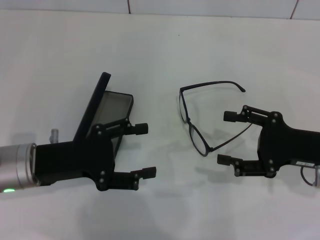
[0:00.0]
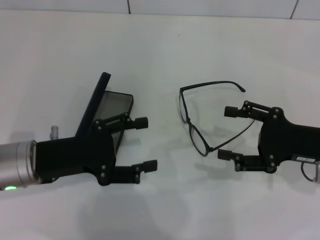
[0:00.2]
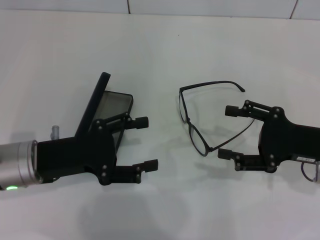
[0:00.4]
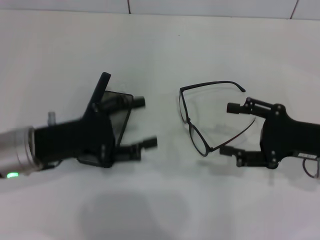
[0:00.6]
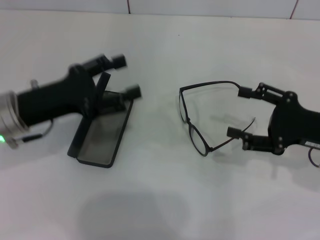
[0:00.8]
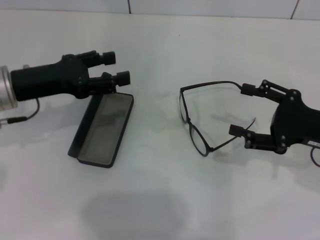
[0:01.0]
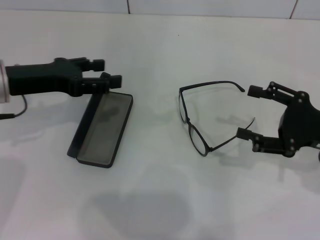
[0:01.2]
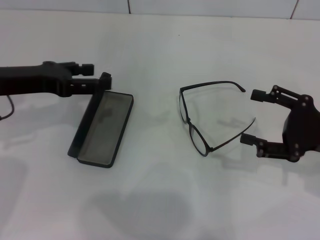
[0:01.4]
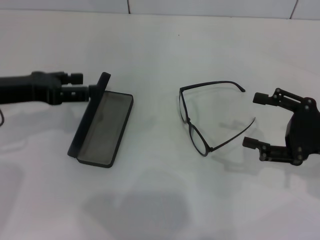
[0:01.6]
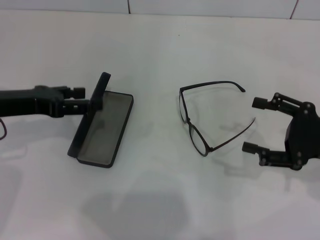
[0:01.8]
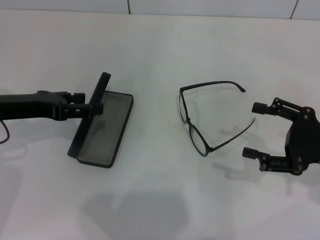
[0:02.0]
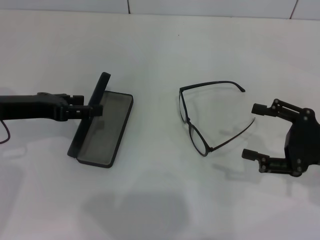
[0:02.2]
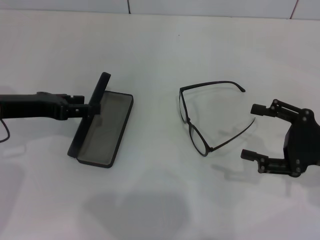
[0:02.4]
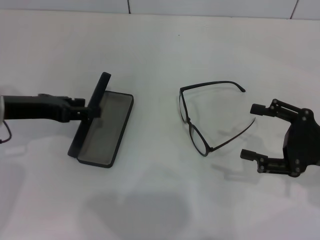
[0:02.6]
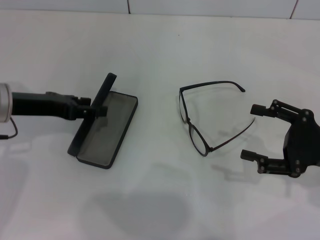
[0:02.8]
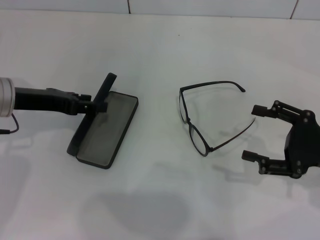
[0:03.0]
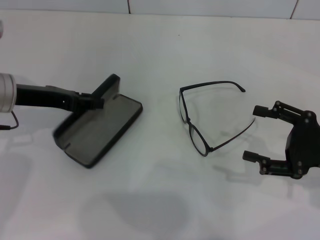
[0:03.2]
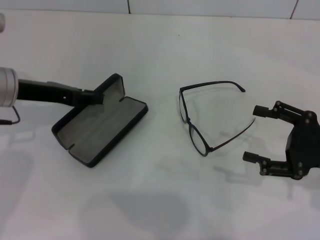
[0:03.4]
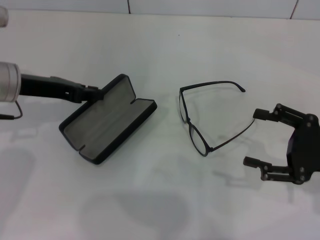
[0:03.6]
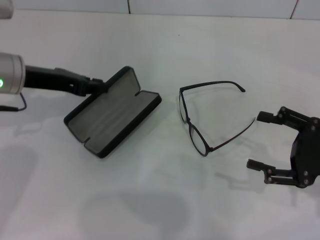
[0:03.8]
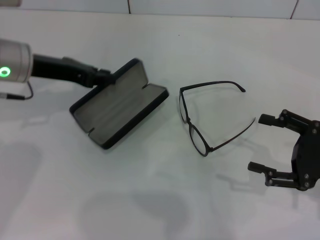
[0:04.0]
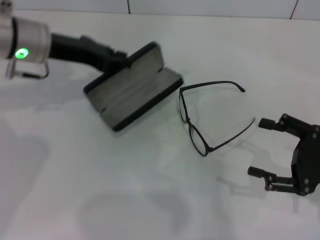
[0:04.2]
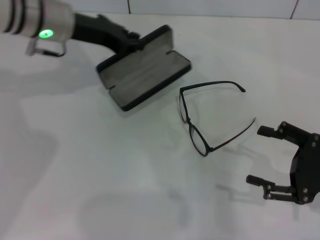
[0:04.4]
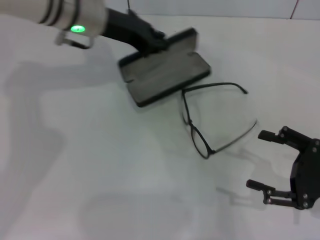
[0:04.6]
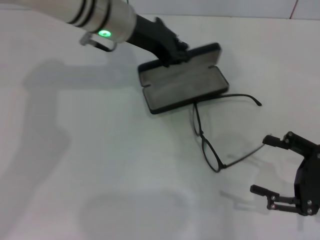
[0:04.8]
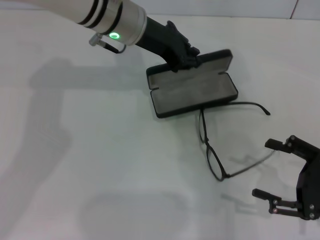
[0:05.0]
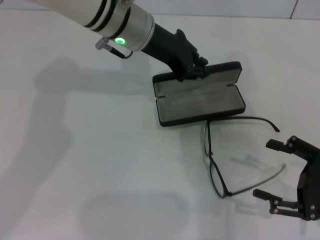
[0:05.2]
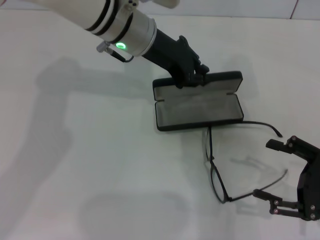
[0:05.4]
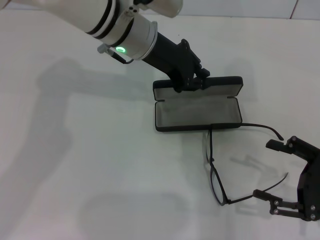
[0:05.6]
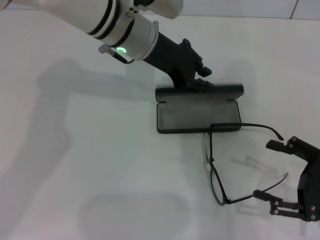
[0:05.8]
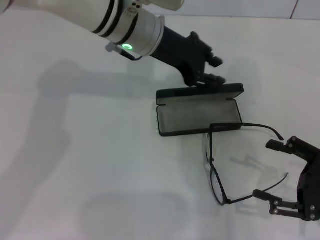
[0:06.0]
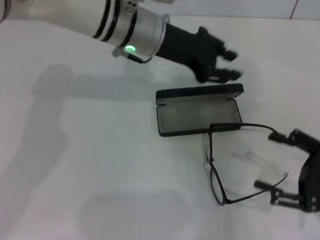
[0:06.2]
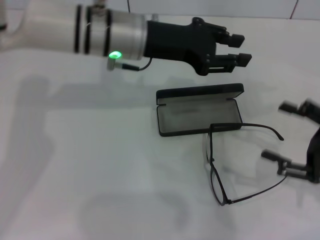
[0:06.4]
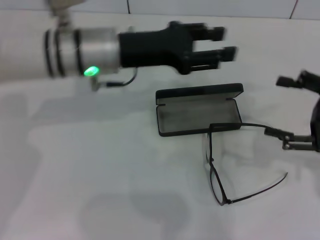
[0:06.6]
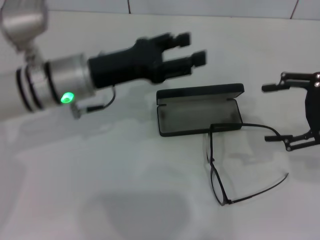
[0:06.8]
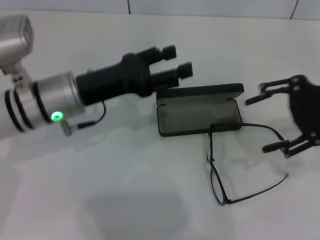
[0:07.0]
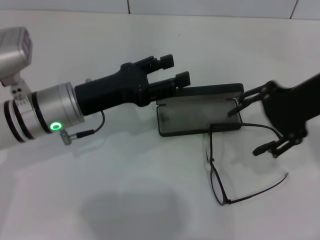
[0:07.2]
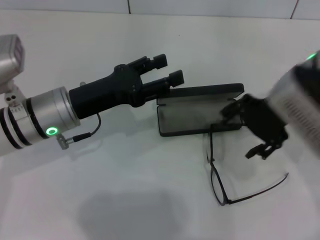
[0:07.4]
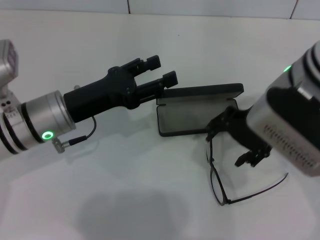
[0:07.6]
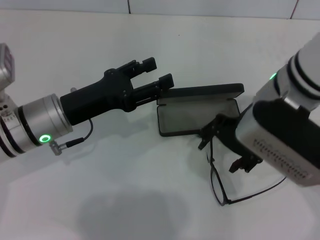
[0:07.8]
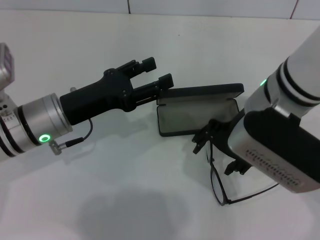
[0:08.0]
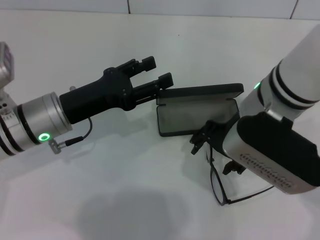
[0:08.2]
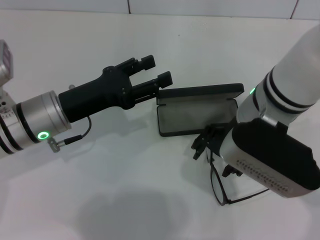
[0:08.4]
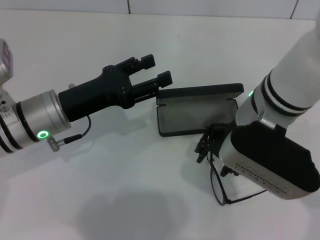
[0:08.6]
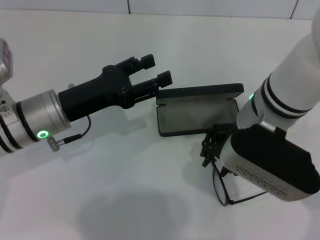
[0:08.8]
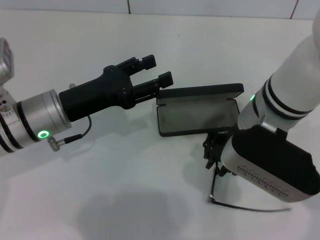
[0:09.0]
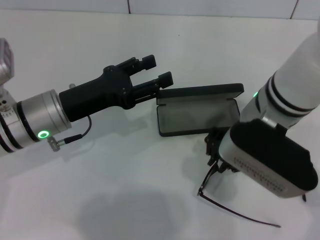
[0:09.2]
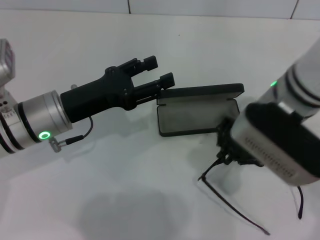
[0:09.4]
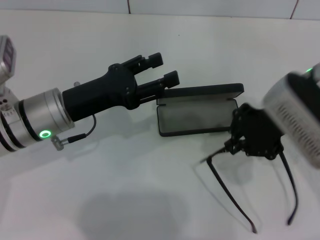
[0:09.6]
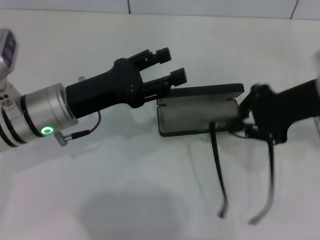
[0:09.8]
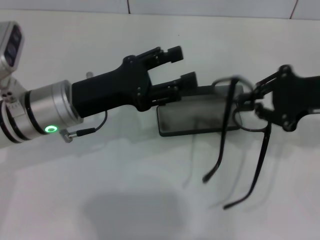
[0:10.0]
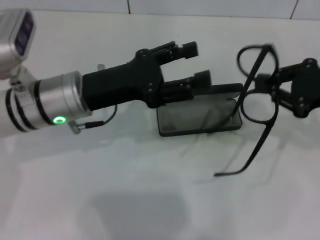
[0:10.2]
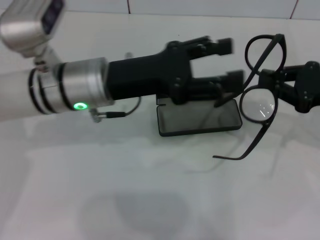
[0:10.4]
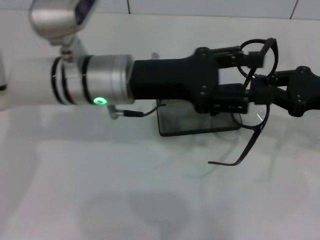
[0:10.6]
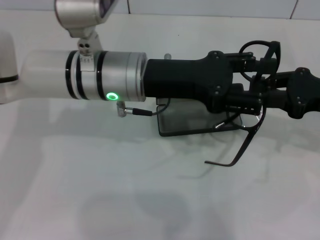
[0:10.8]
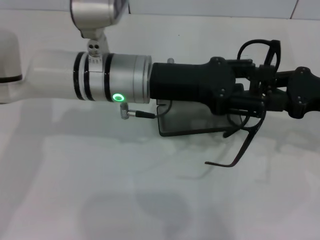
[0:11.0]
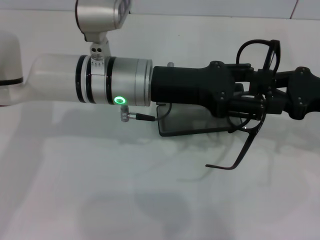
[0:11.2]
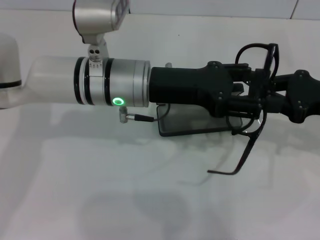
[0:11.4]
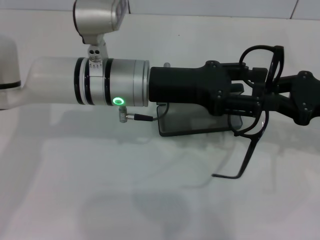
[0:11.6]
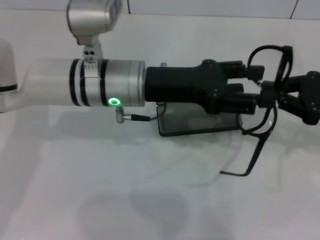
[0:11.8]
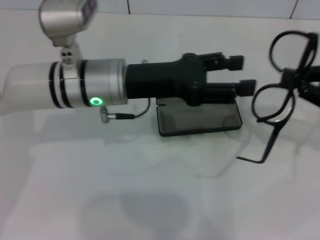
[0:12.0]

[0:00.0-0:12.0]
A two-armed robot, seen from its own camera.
Step, 0:00.0 to 0:03.6: Grab the glasses case with your left hand.
Step, 0:03.8 to 0:05.8: Place the glasses case in the center of the table with your left hand.
Step, 0:06.0 to 0:09.2: Grab the eyeglass frame with your right hand.
0:00.0 to 0:01.6: The left gripper goes about 10 cm upward, forward and to the left.
0:01.6 to 0:03.0: The grippers make only small movements.
0:03.0 to 0:04.4: The left gripper travels forward, to the right and upward by roughly 15 cm, and closes.
0:04.4 to 0:06.0: The left gripper goes roughly 10 cm to the right.
0:06.0 to 0:07.6: The left gripper shifts about 20 cm to the left, backward and downward, and opens. The right gripper travels to the left, upward and forward by some 25 cm.
0:07.6 to 0:09.0: The right gripper closes its fingers.
0:09.0 to 0:10.4: The right gripper moves to the right, roughly 20 cm, and closes up. The left gripper goes some 10 cm to the right and upward.

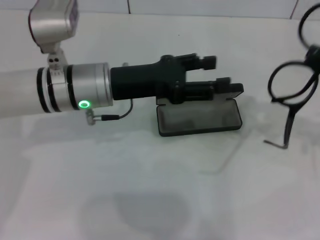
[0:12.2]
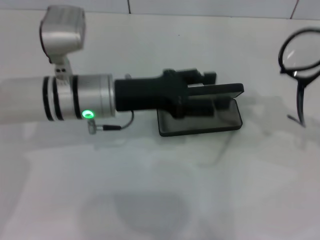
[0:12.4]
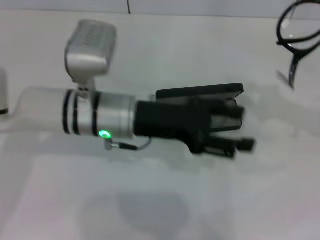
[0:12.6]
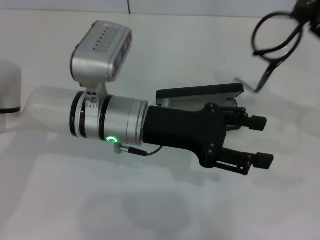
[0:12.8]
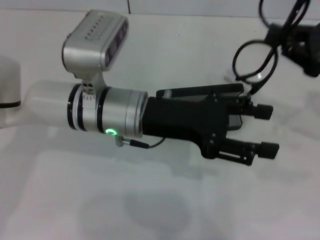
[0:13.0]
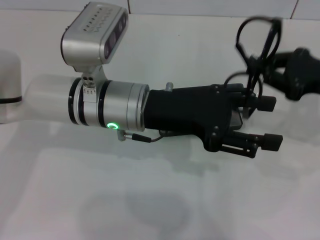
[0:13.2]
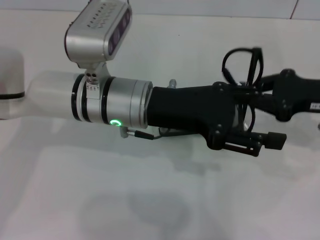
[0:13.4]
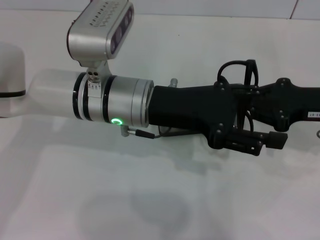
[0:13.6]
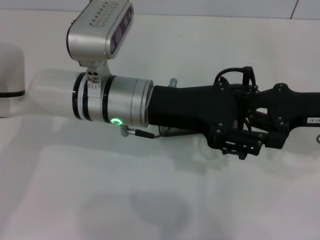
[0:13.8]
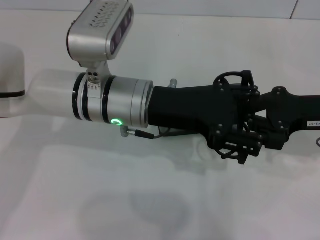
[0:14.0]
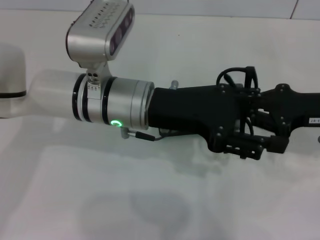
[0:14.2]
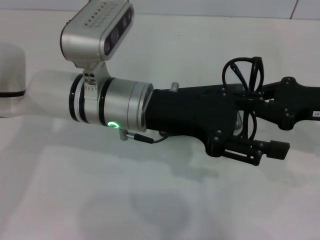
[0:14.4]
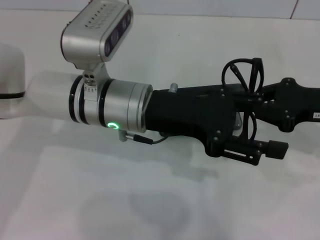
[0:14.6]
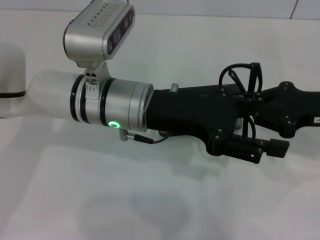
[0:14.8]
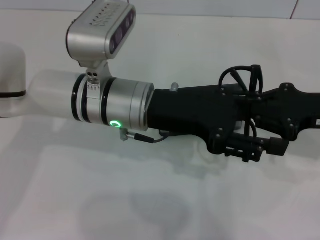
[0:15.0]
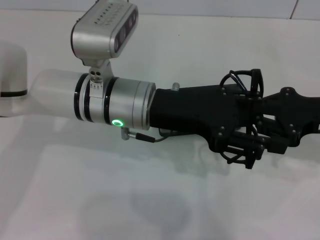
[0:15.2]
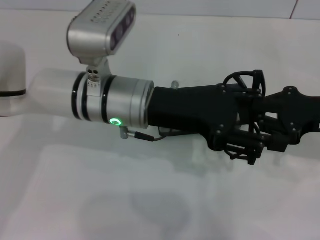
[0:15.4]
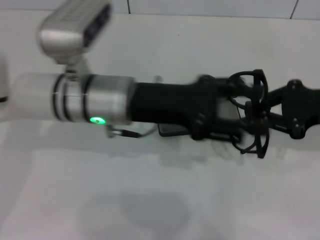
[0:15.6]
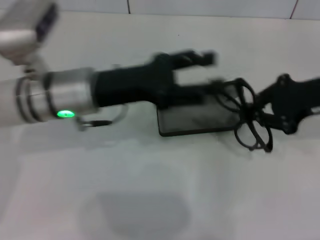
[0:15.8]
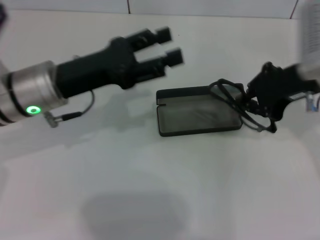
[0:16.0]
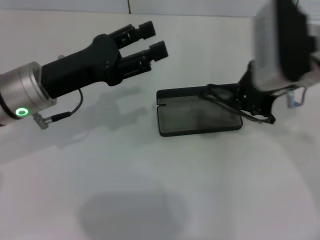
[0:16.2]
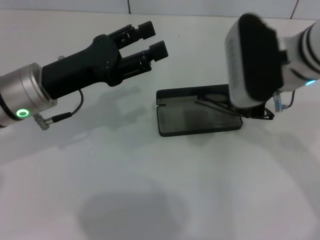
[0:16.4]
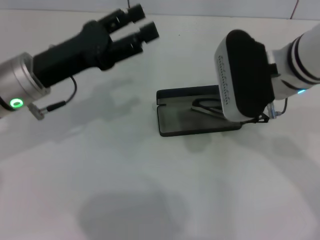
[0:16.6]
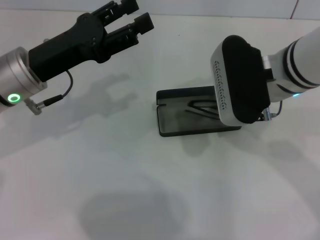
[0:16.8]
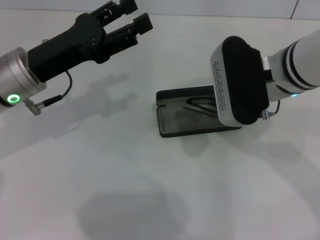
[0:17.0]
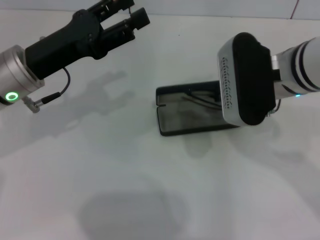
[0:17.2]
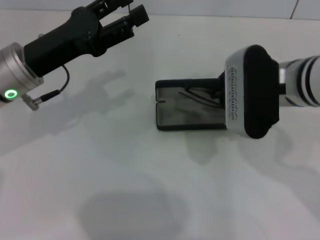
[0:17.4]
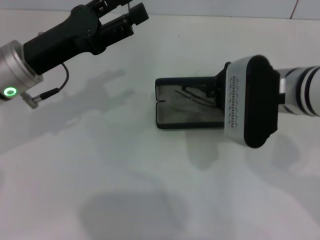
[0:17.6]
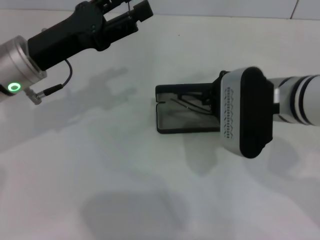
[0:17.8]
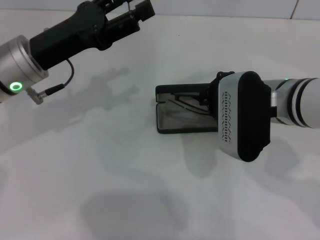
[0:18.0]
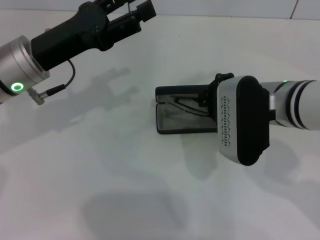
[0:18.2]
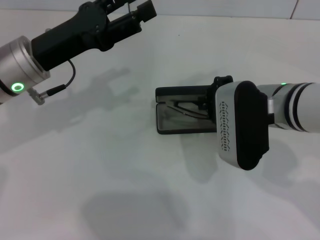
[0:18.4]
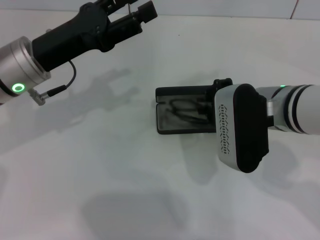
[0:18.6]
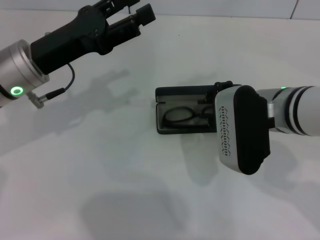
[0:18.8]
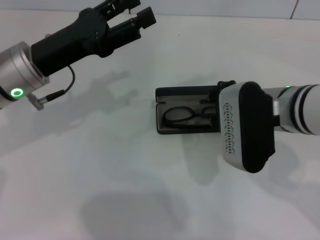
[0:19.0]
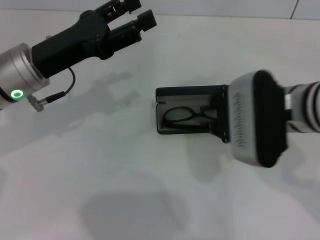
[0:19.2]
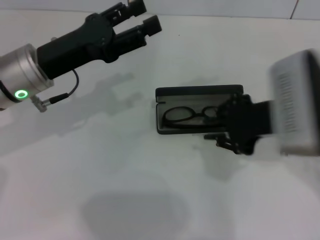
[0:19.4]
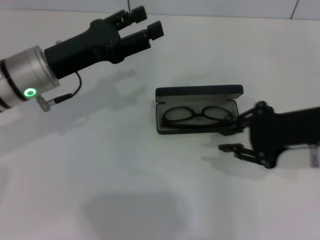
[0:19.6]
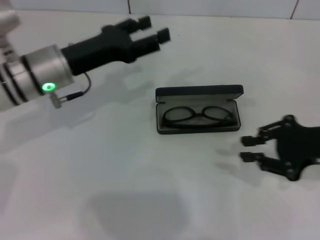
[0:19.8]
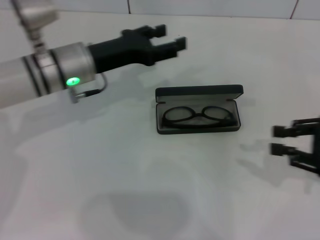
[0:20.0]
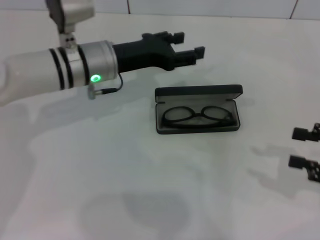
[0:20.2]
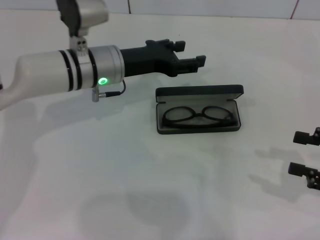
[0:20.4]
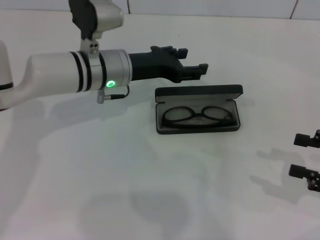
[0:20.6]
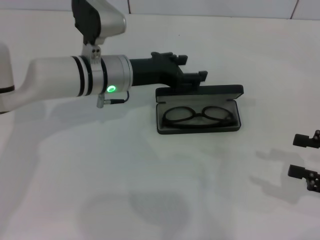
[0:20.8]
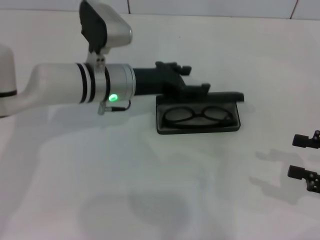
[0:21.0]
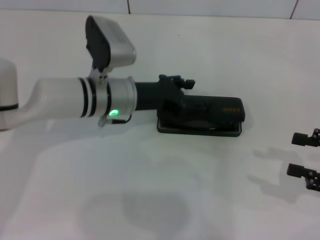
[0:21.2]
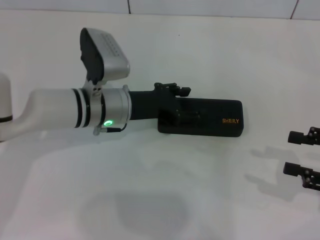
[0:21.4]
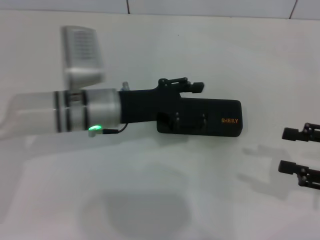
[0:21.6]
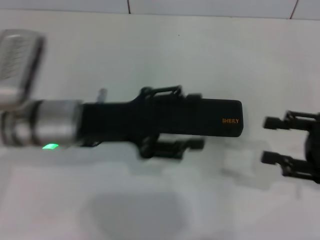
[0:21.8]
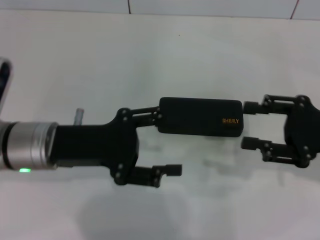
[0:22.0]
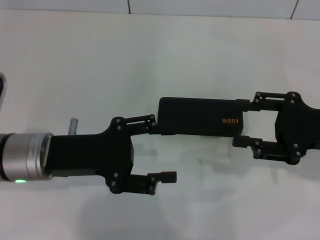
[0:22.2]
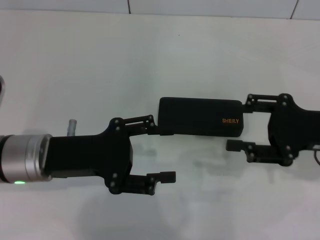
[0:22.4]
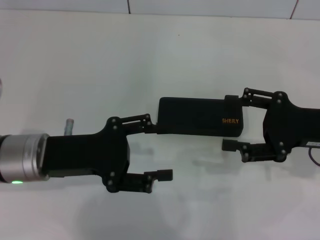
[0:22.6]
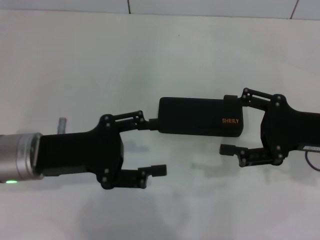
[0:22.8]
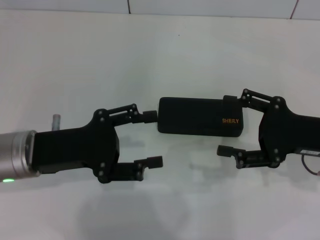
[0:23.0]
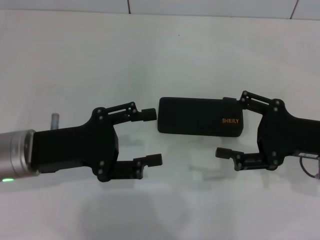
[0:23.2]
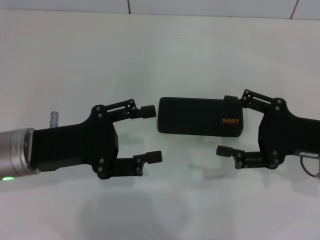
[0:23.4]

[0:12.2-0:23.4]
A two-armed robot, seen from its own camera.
Step, 0:12.2 to 0:15.2: Lift the glasses with your right hand.
Step, 0:15.4 to 0:18.6: Put the glasses into the case with your right hand.
Step, 0:18.8 to 0:21.2: Close the glasses case with your left hand.
0:12.2 to 0:13.8: The right gripper travels to the left by approximately 5 cm; the left gripper travels to the right by roughly 5 cm.
0:13.8 to 0:15.4: The grippers move only a little.
0:15.4 to 0:17.0: The two grippers go some 15 cm to the left.
0:17.0 to 0:18.6: The right gripper moves some 5 cm.
0:18.6 to 0:20.2: The left gripper moves to the right and forward, roughly 10 cm, while the right gripper travels to the right by roughly 20 cm, and opens.
0:20.2 to 0:21.8: The left gripper goes roughly 10 cm backward.
0:21.8 to 0:23.4: The right gripper heads to the left, covering approximately 5 cm, while the left gripper changes place by some 5 cm.
